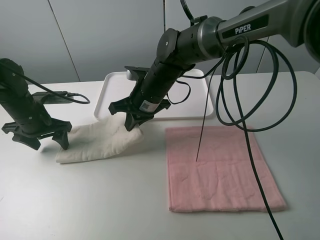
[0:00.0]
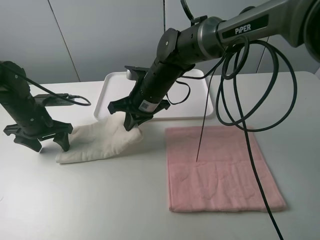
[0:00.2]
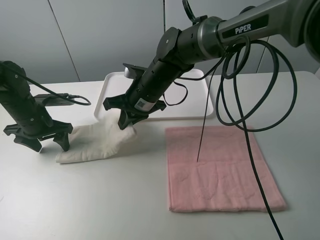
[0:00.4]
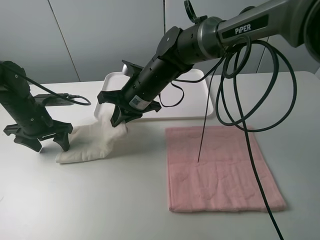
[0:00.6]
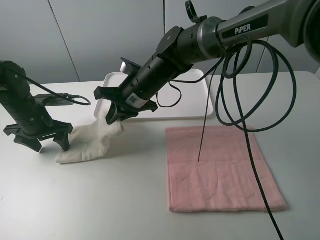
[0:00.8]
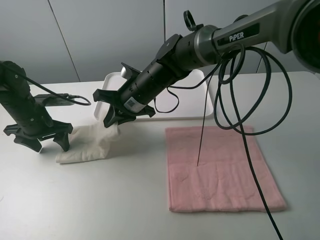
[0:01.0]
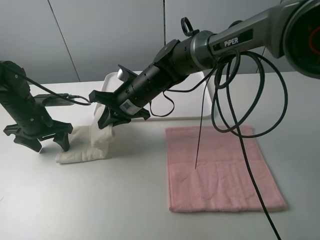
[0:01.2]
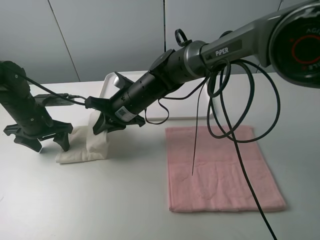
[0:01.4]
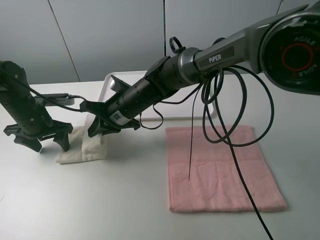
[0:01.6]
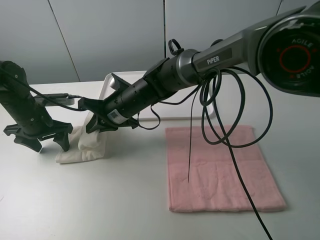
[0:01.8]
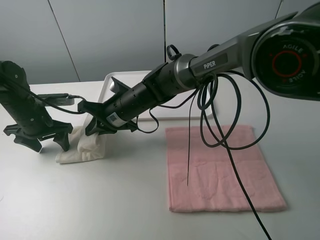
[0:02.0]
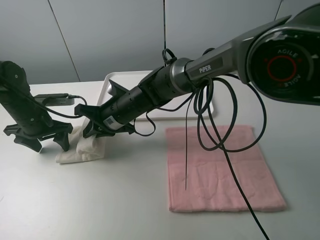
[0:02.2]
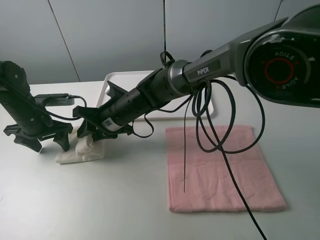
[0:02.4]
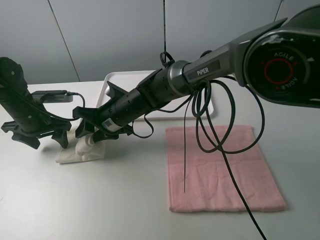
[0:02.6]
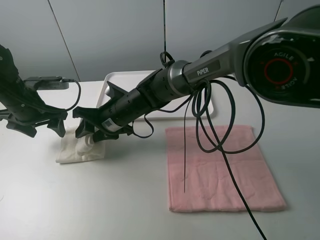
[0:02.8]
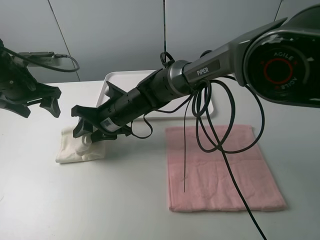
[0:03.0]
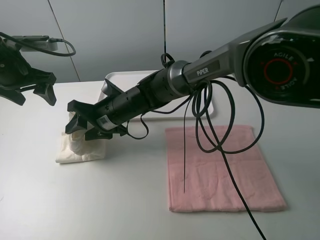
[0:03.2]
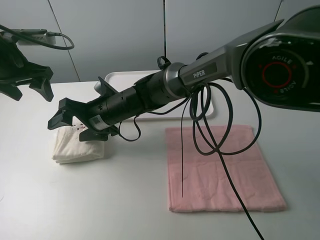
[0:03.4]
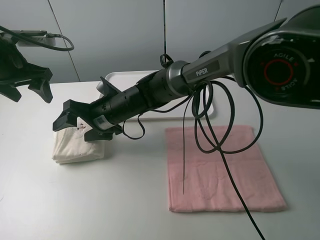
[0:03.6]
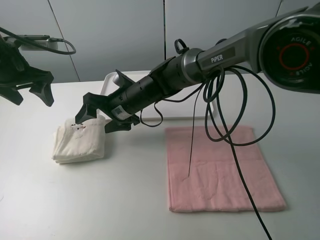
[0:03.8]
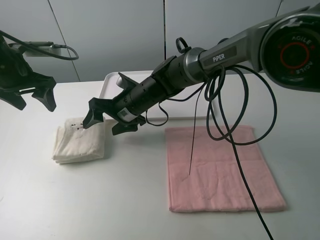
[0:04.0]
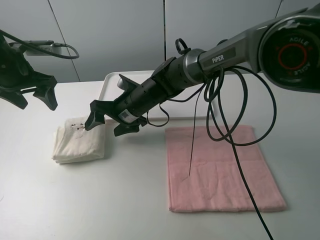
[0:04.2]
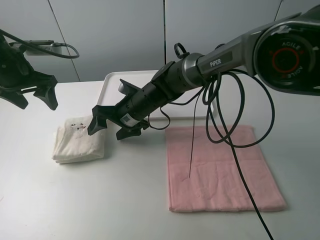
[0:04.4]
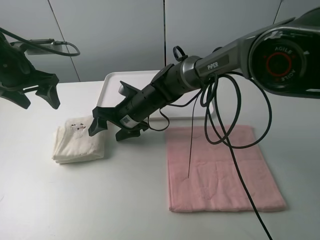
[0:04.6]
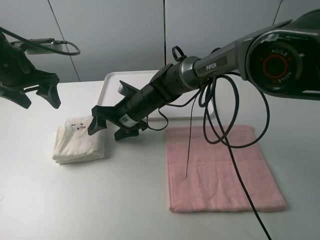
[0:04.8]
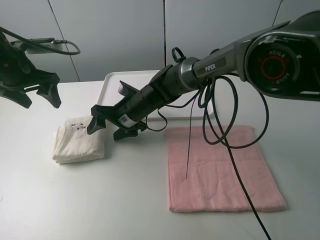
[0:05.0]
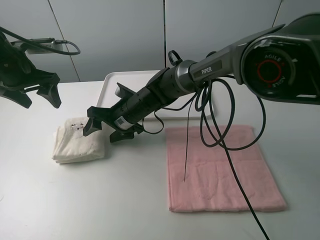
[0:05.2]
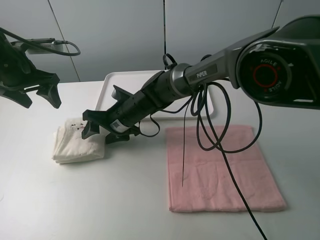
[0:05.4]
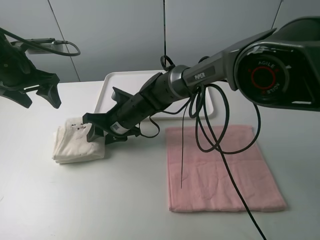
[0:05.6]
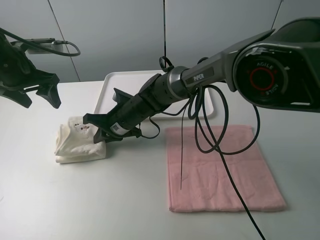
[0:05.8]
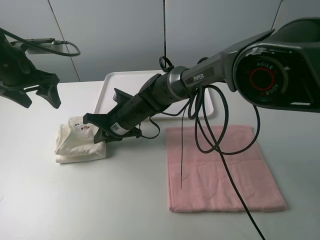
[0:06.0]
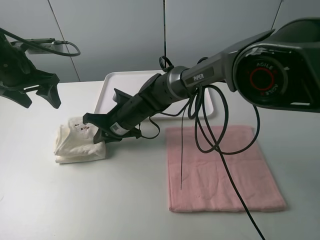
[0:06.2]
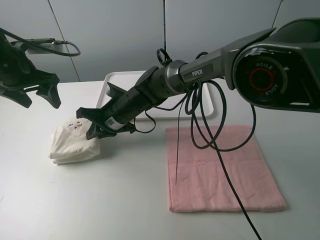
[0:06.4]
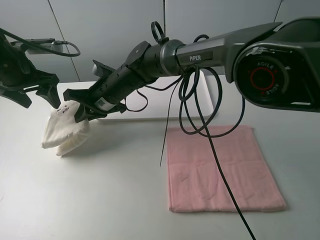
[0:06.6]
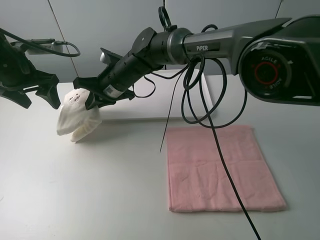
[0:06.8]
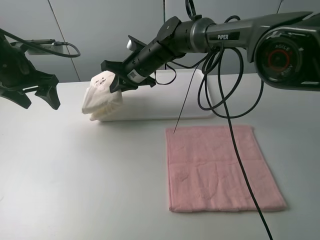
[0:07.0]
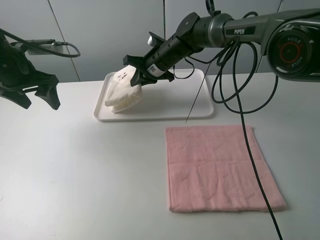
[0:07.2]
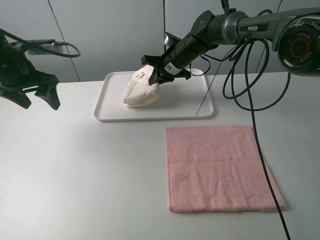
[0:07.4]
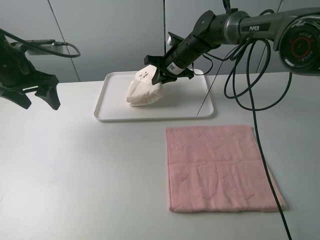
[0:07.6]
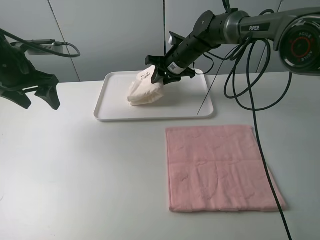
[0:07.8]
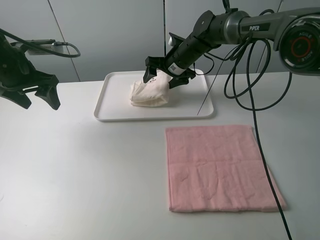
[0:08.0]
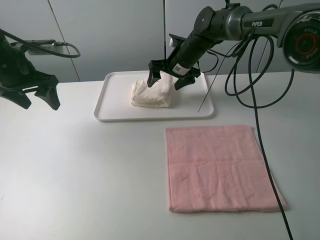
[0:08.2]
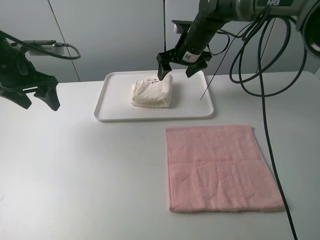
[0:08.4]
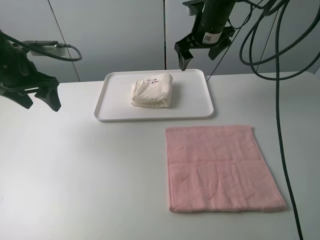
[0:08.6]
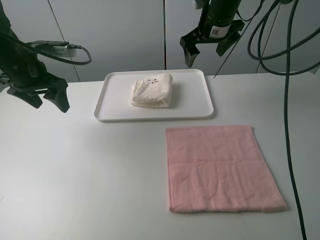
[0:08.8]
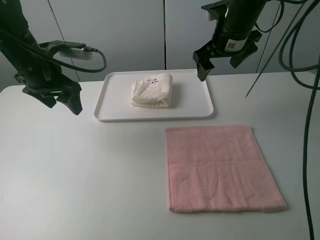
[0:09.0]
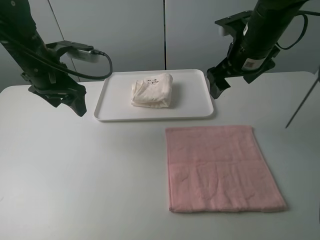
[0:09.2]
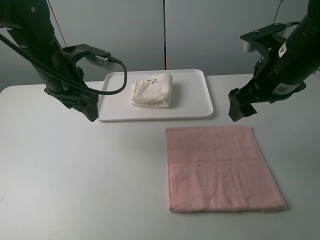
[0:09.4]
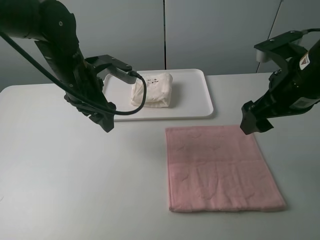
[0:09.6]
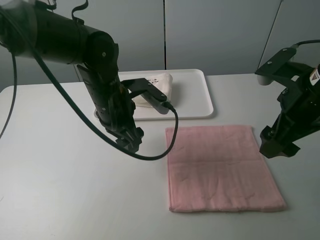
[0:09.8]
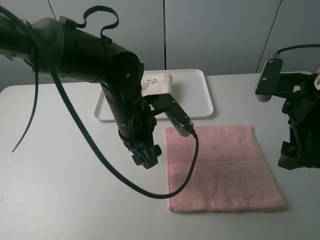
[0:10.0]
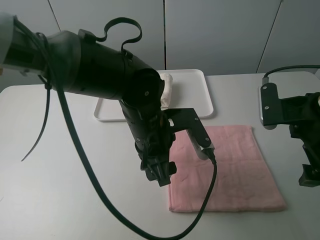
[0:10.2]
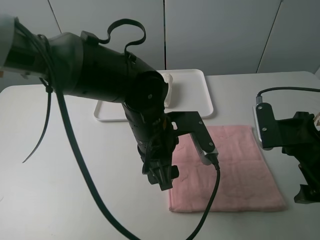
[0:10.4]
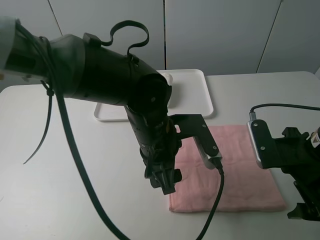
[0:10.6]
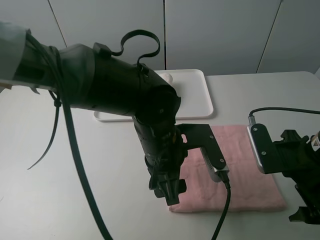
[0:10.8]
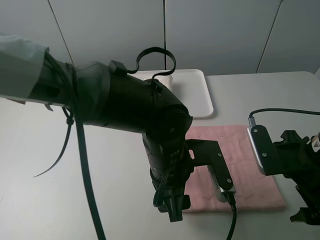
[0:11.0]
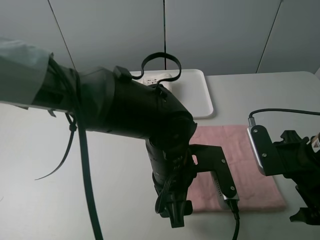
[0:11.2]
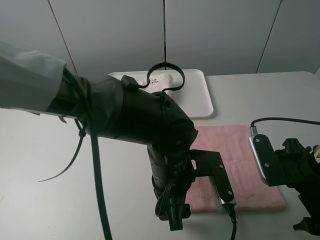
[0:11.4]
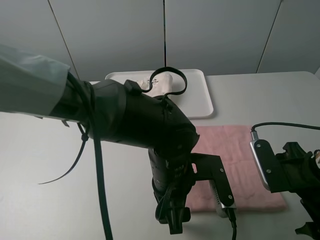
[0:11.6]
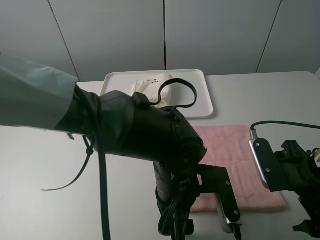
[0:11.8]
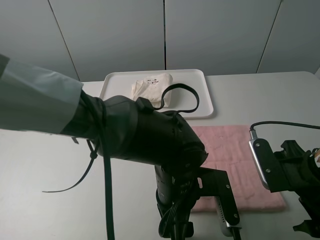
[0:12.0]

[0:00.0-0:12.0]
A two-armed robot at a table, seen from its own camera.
Task of the whole recording: fold one of the towels by two grippers and place it on the tray,then fold another towel by two grippers and place it on the folded towel.
Step, 0:00.0 to 0:03.8: Fold the white towel from right to left with right gripper.
Step, 0:04.0 to 0:06.0: Grasp the white towel with the right gripper.
Step, 0:06.2 to 0:08.2: Move the white towel to the plate with the right gripper.
0:00.0 to 0:01.6: The right gripper moves to the left, roughly 5 cm.
0:01.6 to 0:03.0: The right gripper opens. Meanwhile the left gripper goes about 10 cm upward.
0:03.0 to 0:04.4: The right gripper opens its fingers.
0:04.4 to 0:06.0: The right gripper closes up.
0:06.0 to 0:07.6: The right gripper shifts roughly 20 cm forward, to the right and upward.
0:07.6 to 0:09.0: The right gripper moves upward, backward and to the right, roughly 20 cm, and opens its fingers. Meanwhile the left gripper shifts approximately 5 cm to the right.
0:09.0 to 0:10.4: The right gripper travels backward and to the right by some 20 cm. The left gripper shifts roughly 25 cm to the right and backward.
0:10.4 to 0:12.0: The left gripper heads backward and downward, covering about 10 cm.

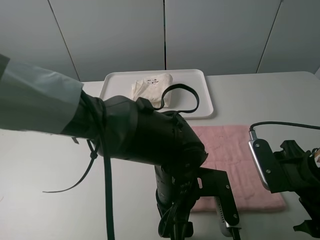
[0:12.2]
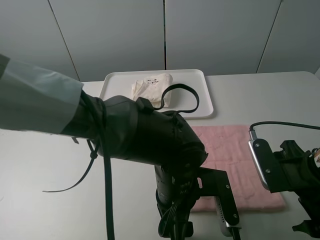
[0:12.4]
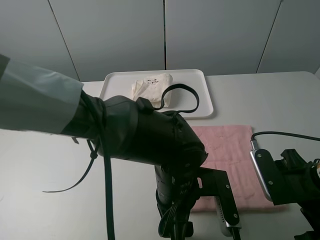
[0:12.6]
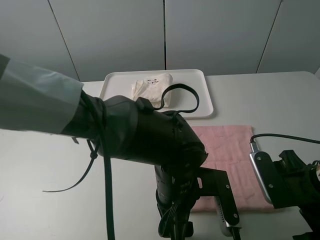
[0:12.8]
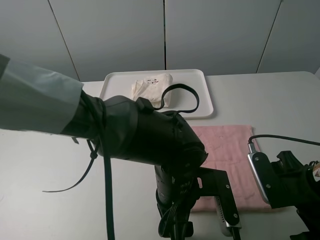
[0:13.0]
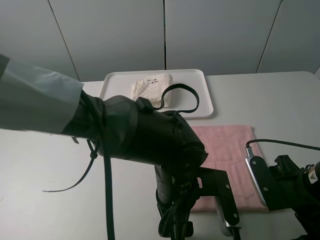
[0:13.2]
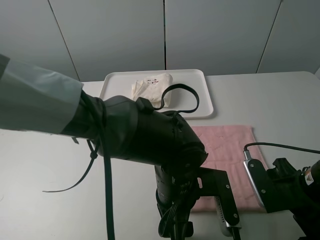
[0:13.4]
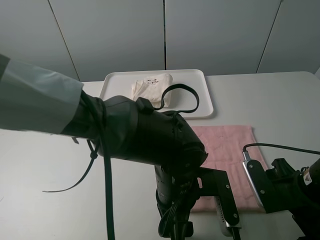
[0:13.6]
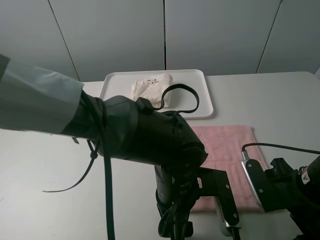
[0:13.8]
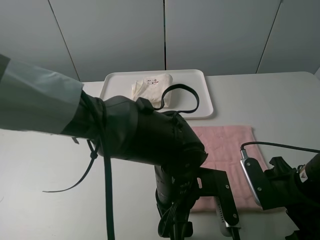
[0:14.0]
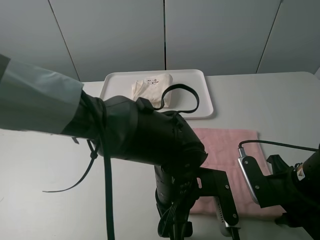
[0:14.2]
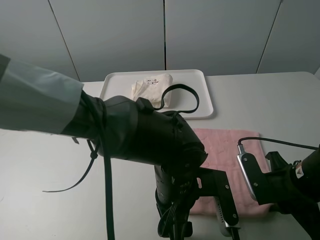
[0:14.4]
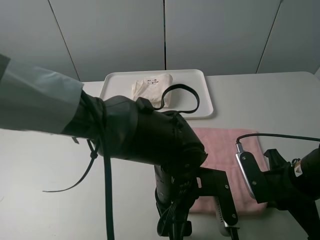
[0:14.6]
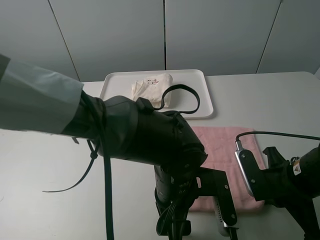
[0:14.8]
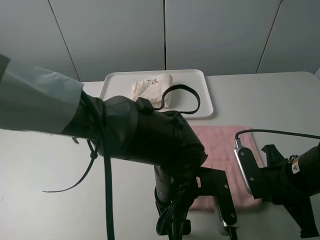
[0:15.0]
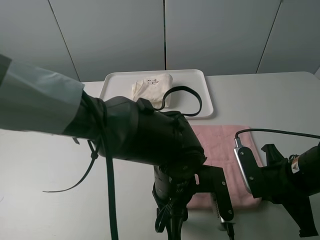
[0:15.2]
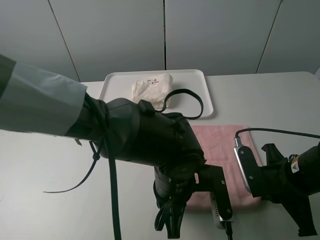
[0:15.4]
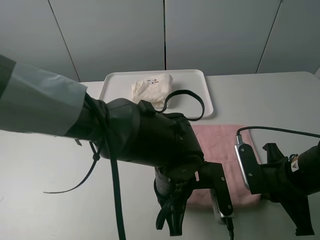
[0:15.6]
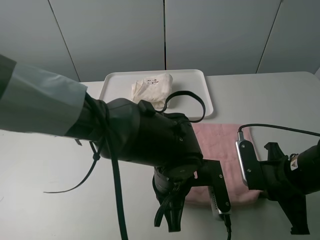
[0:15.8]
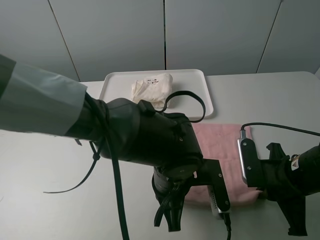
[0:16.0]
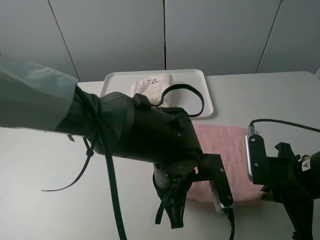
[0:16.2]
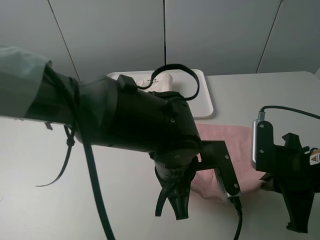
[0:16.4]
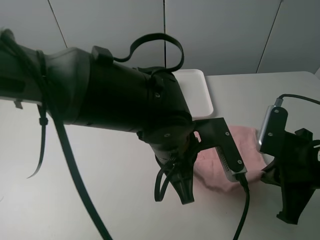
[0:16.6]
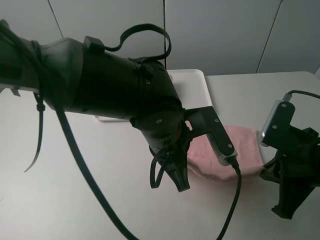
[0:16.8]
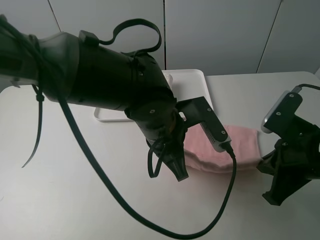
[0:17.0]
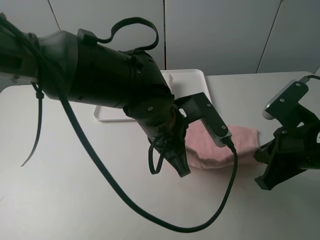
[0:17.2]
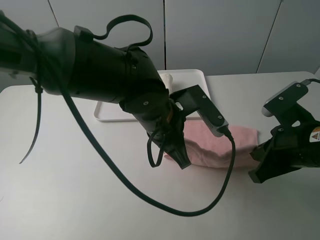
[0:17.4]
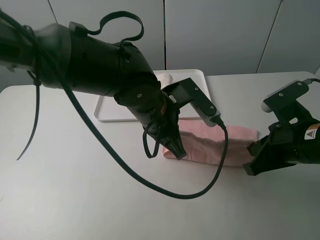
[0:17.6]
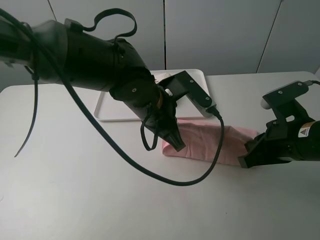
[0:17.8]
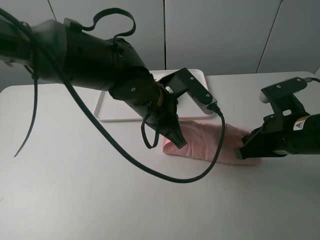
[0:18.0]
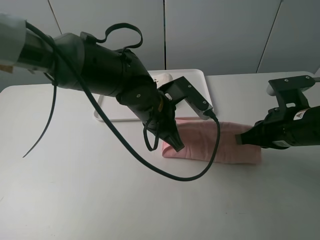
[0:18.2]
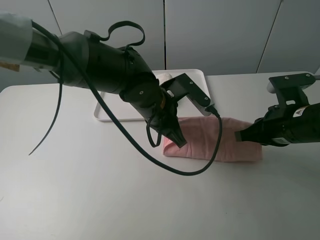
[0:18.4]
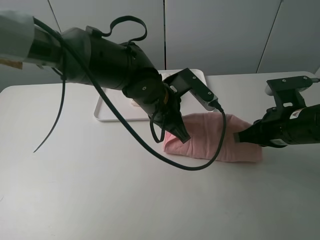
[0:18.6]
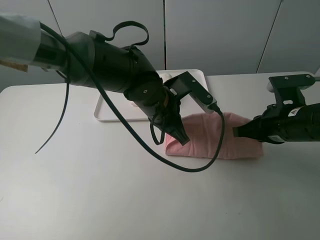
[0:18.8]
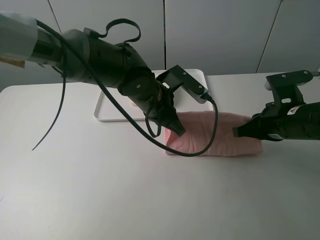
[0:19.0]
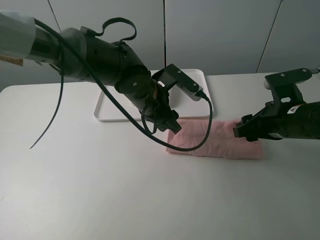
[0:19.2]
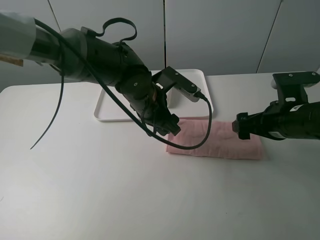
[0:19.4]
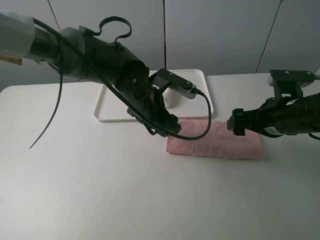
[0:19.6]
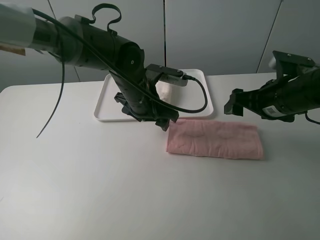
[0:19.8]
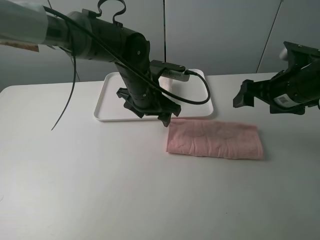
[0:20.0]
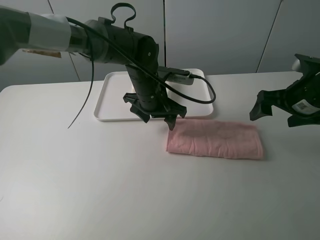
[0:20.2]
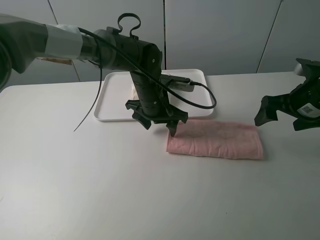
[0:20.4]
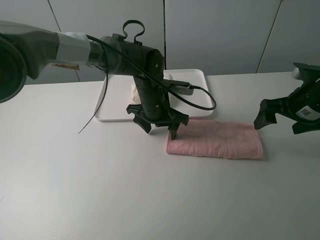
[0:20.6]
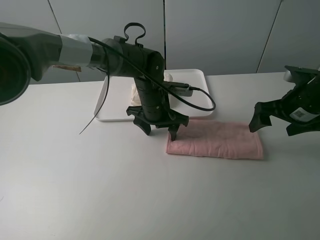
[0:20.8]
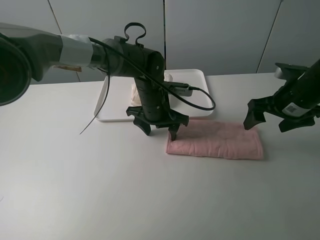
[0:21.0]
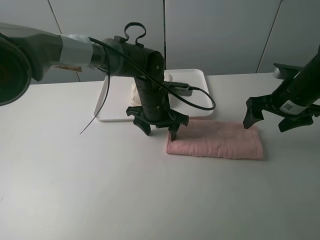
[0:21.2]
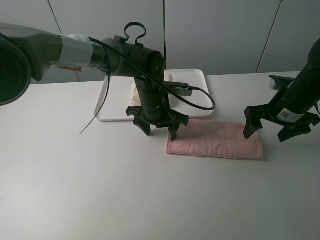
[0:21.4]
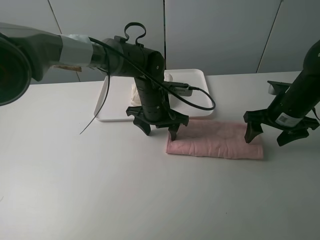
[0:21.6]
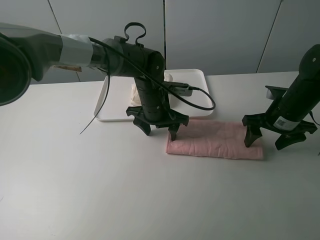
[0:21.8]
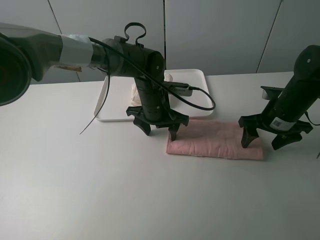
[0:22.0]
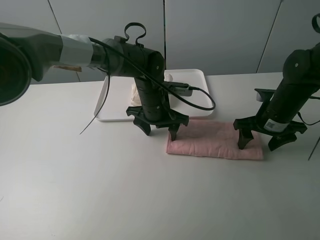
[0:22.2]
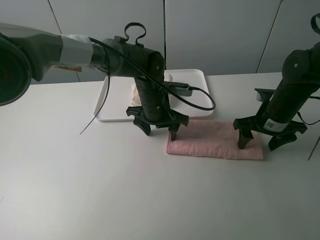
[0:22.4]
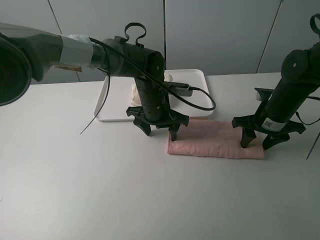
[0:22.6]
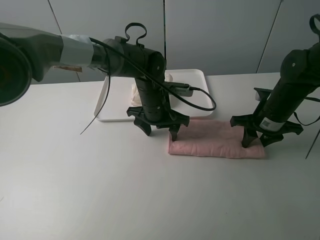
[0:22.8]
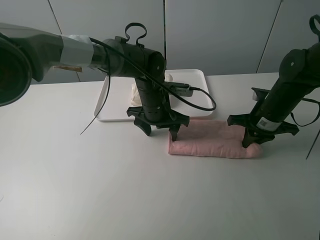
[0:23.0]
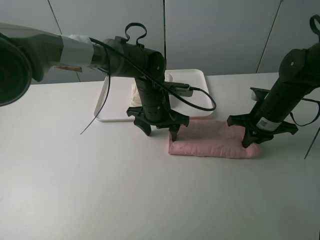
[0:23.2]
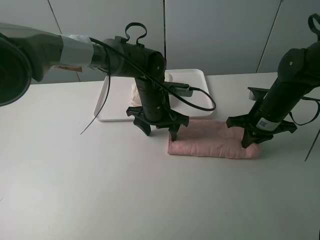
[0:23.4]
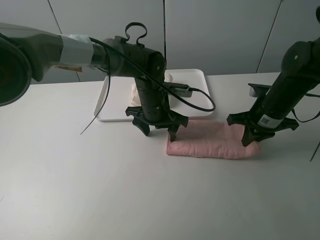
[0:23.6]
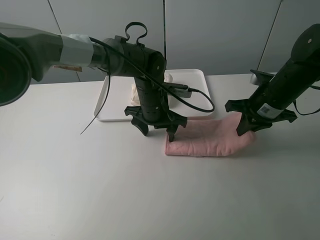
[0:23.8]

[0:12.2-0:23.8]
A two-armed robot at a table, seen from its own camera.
Task of the whole recording: fold one of the towels by two grippers and place it on the tray,then fold another towel by two grippers and place it on the folded towel.
Step, 0:15.0 to 0:19.6: Fold the pink towel upwards with the left gripper.
Step, 0:19.8 to 0:20.8: Press the pink towel with the left gripper.
Step, 0:21.0 to 0:23.2: Grasp the pink towel with the right gripper.
0:12.2 to 0:13.6: There are only small adjustments of the grippers.
0:13.6 to 0:15.0: The right gripper closes up.
0:15.0 to 0:16.6: The grippers both shift upward by some 5 cm. The left gripper closes up.
0:16.6 to 0:18.0: The grippers both shift forward by roughly 5 cm.
0:18.0 to 0:19.4: The right gripper opens, while the left gripper opens its fingers.
0:19.4 to 0:21.0: Both grippers travel together forward, some 5 cm.
0:21.0 to 0:22.4: The right gripper is displaced downward by about 5 cm.
0:22.4 to 0:23.8: The right gripper ends up approximately 5 cm from where it was, and closes.
